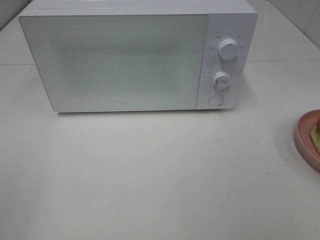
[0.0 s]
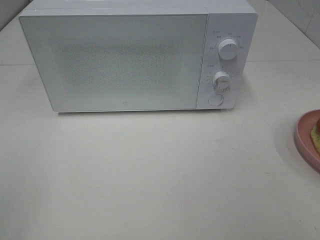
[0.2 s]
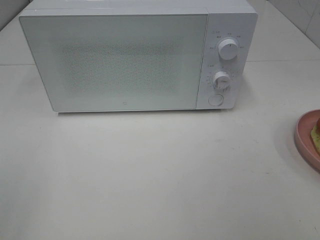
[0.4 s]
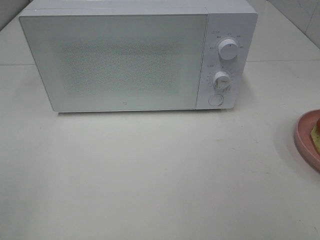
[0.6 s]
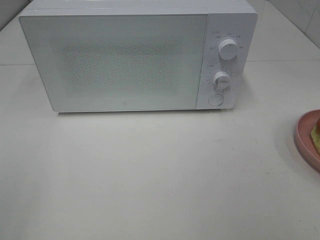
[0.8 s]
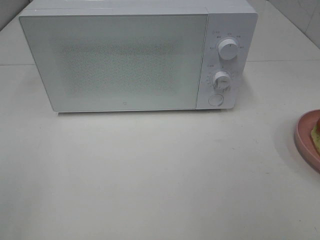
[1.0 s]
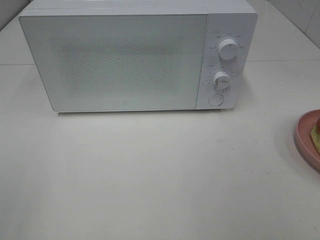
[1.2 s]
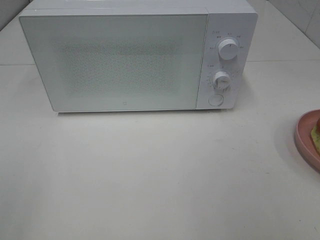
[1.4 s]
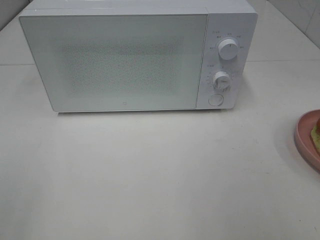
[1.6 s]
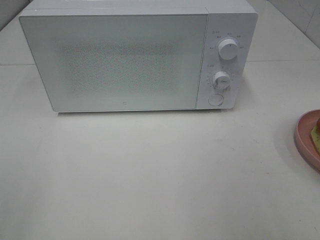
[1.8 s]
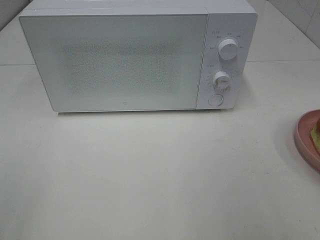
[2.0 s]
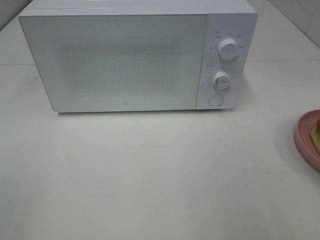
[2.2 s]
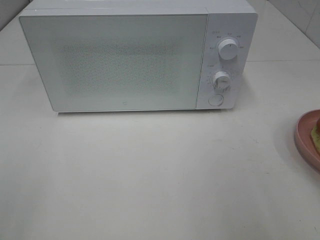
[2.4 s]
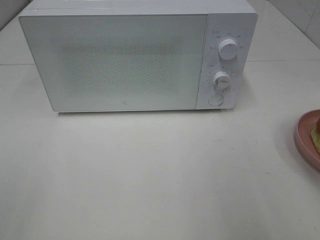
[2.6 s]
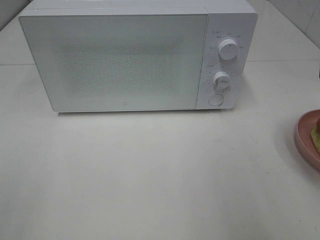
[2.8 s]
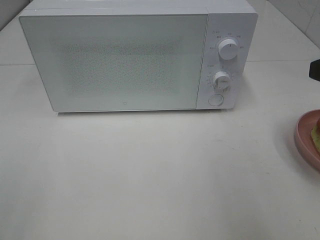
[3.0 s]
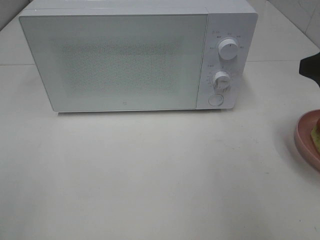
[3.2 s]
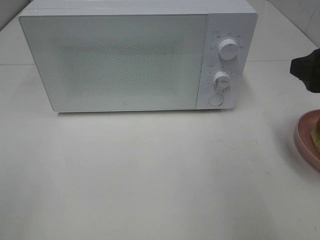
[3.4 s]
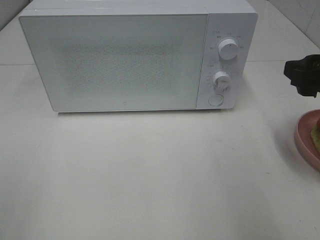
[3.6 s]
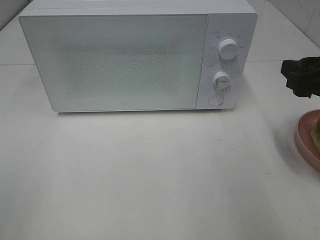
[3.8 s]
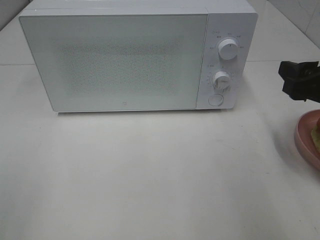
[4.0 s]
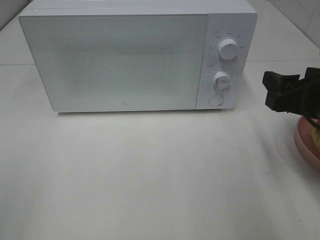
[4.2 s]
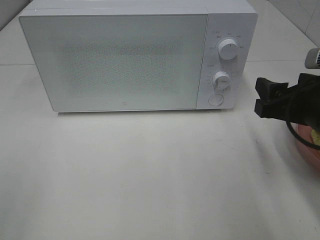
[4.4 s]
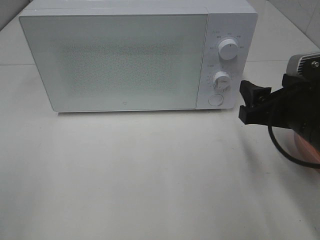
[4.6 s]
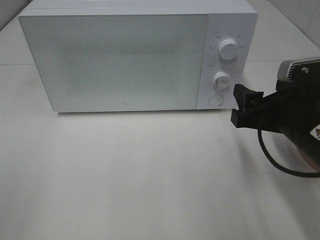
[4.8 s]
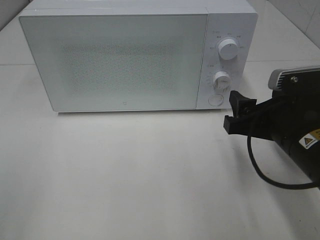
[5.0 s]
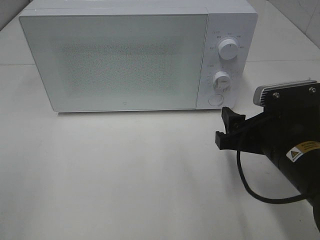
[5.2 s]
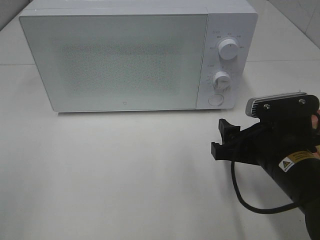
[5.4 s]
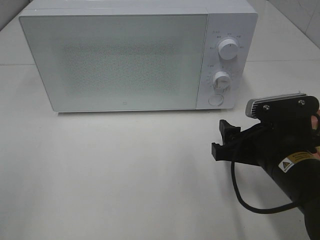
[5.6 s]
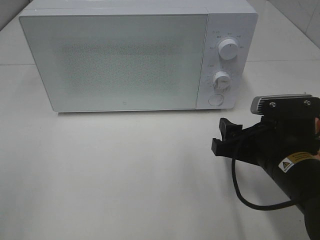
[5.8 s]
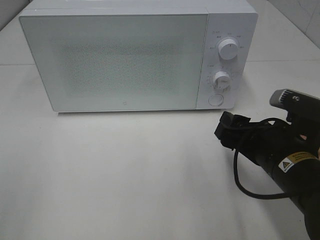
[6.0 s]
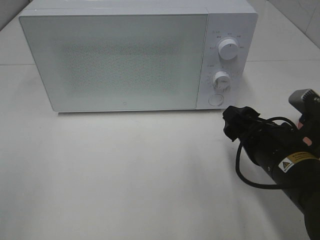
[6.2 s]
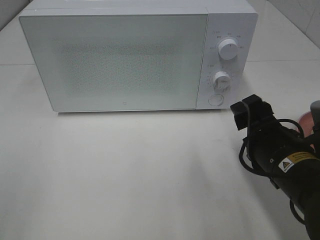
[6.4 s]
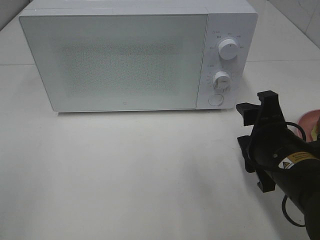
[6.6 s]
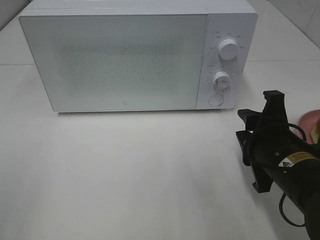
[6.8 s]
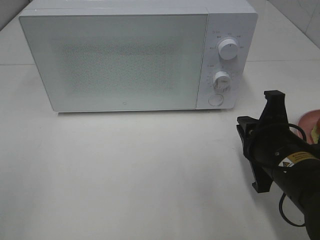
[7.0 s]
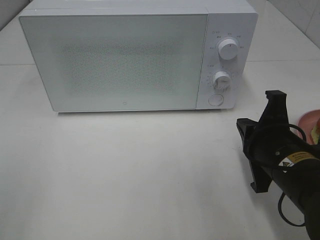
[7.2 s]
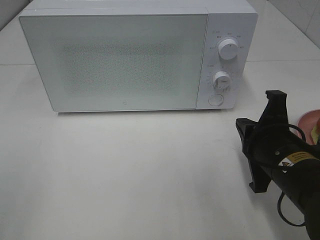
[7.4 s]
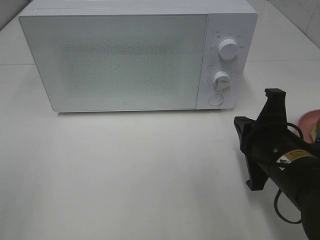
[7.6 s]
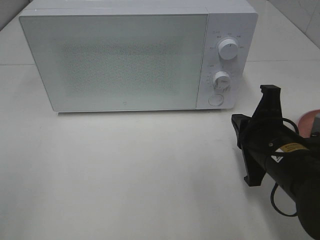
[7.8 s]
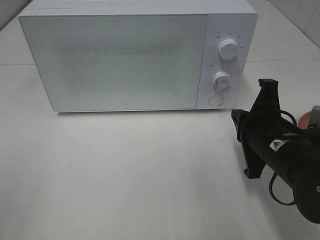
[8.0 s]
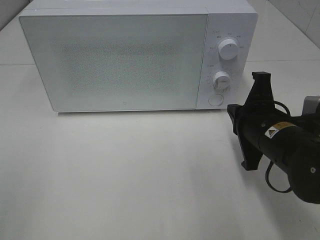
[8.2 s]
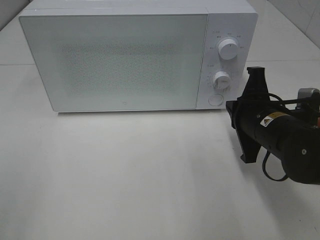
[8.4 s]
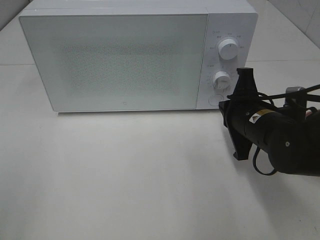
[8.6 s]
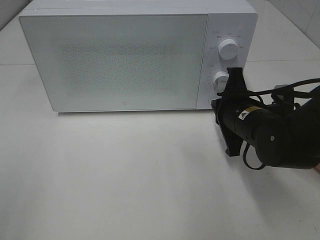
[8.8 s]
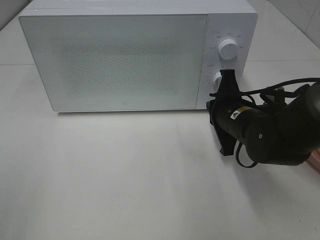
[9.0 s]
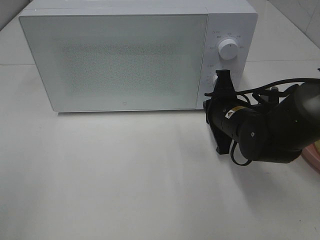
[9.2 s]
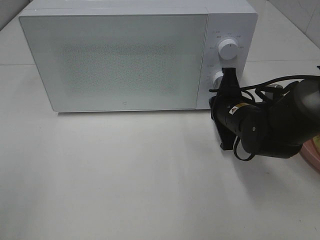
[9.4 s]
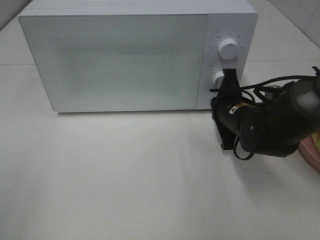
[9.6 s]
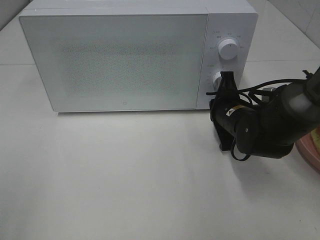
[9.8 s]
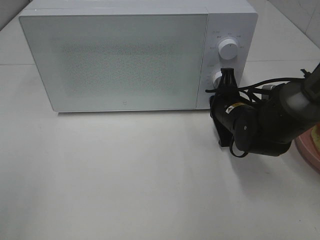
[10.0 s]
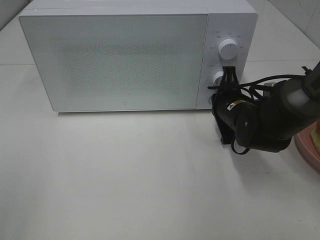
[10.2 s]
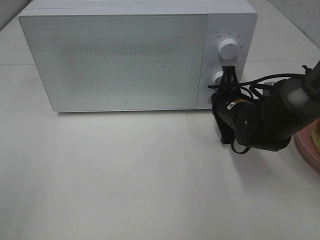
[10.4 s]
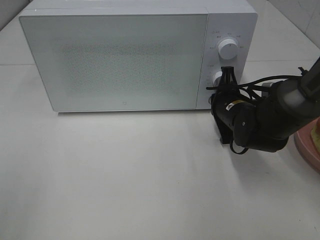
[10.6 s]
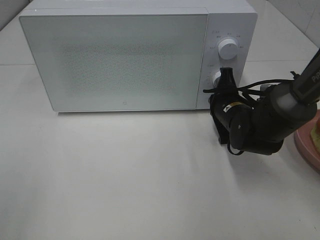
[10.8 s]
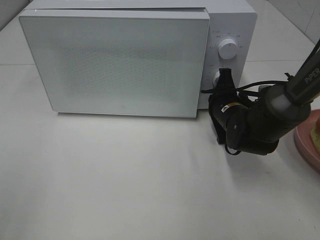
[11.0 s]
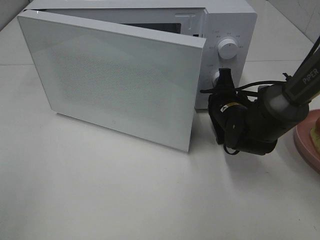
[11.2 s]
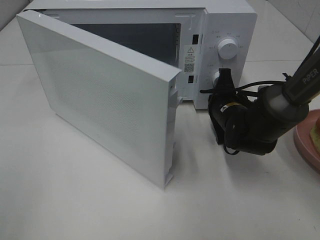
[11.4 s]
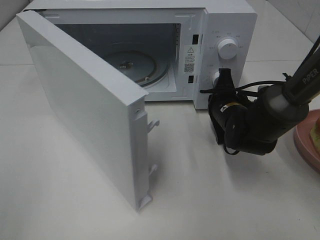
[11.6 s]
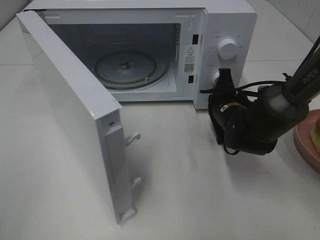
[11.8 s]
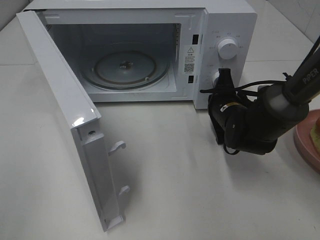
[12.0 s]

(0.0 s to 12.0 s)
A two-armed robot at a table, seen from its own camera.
Task of the whole recording: Heat Sandwich.
1.6 s - 3.0 s: The right gripper travels forward by roughly 10 cm.
3.0 s - 4.4 s: The right gripper moves downward, about 10 cm.
4.4 s - 6.0 s: The right gripper travels downward and to the left by roughly 10 cm.
6.0 s - 7.6 s: The right gripper closes its fingers.
7.6 s - 9.0 s: The right gripper heads forward, covering approximately 10 cm.
9.0 s - 10.4 s: The right gripper ends up approximately 5 cm from where it was.

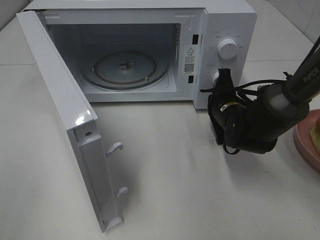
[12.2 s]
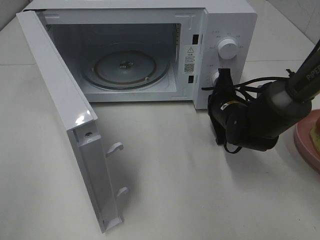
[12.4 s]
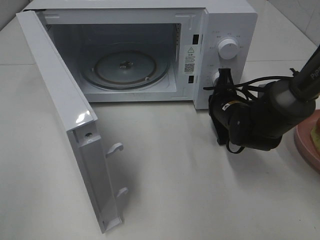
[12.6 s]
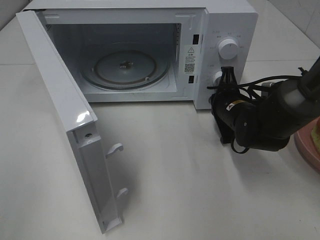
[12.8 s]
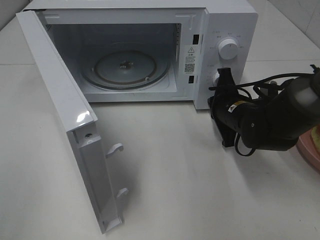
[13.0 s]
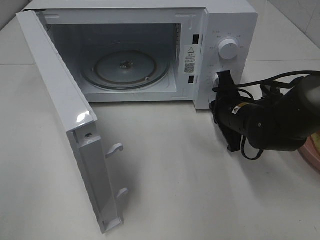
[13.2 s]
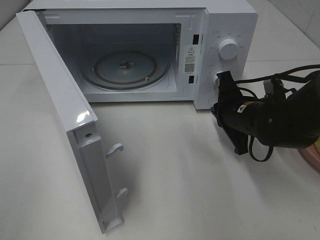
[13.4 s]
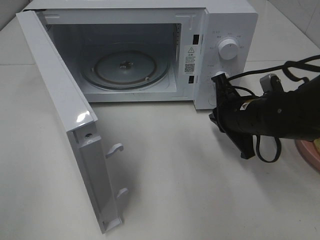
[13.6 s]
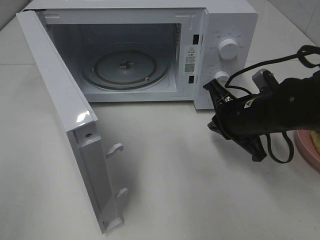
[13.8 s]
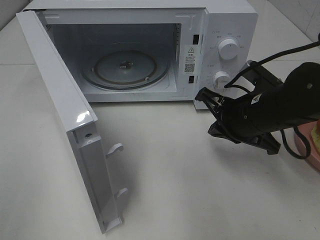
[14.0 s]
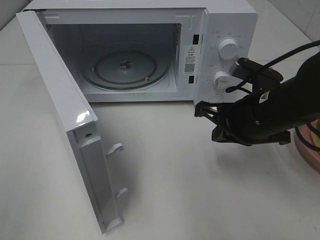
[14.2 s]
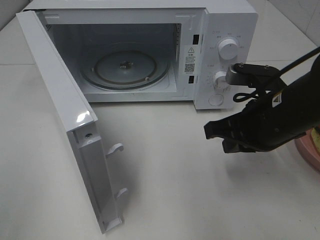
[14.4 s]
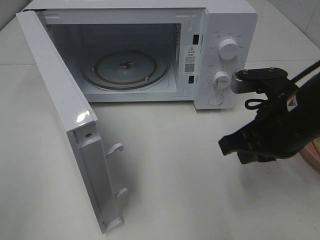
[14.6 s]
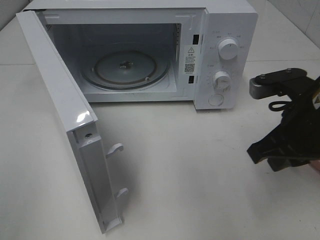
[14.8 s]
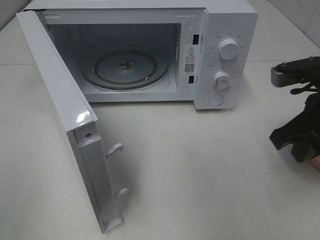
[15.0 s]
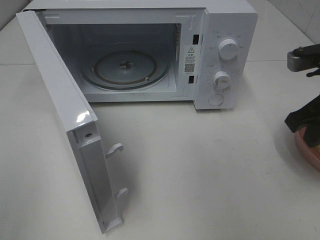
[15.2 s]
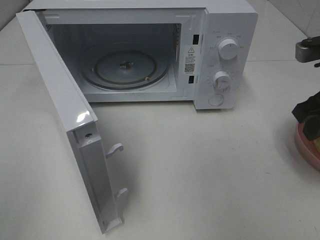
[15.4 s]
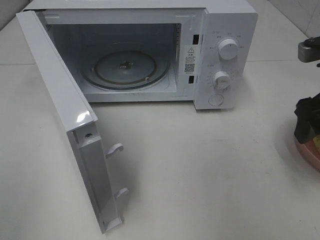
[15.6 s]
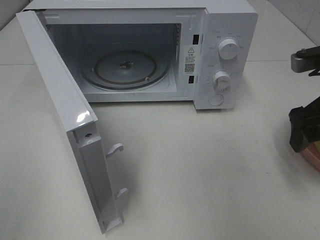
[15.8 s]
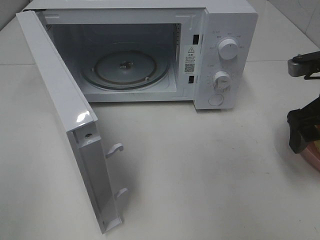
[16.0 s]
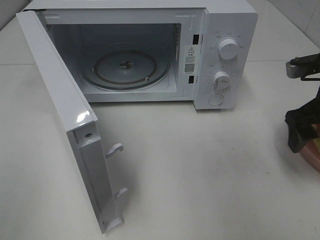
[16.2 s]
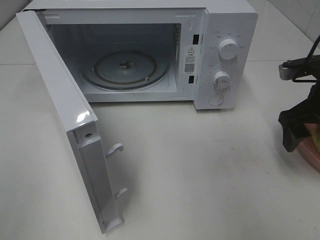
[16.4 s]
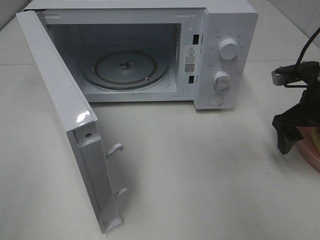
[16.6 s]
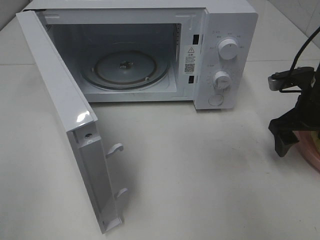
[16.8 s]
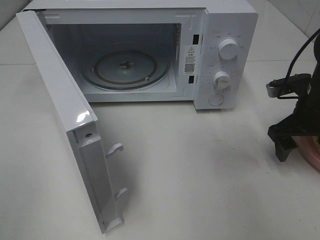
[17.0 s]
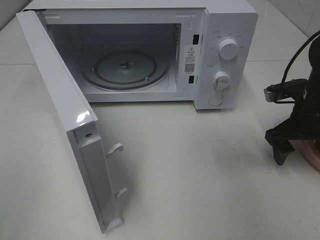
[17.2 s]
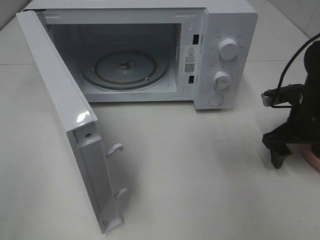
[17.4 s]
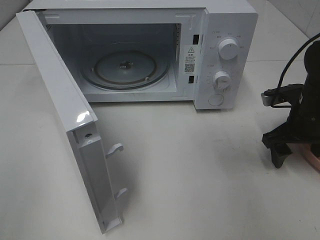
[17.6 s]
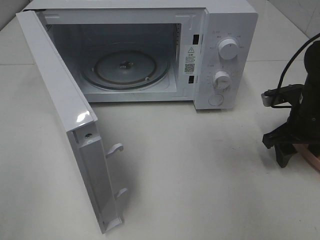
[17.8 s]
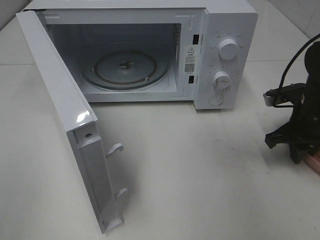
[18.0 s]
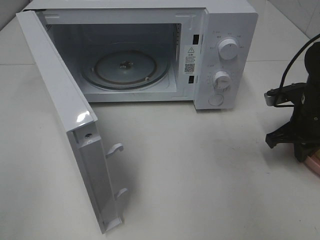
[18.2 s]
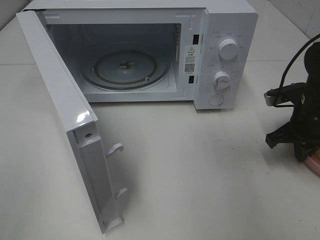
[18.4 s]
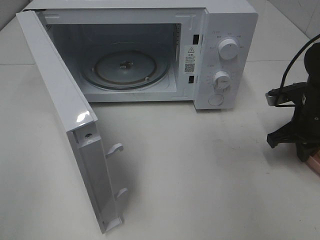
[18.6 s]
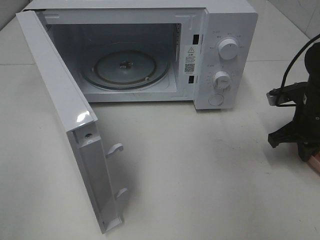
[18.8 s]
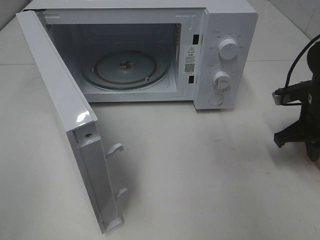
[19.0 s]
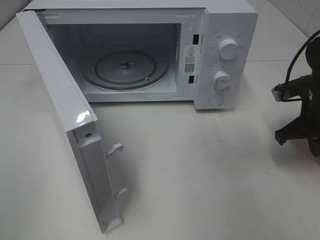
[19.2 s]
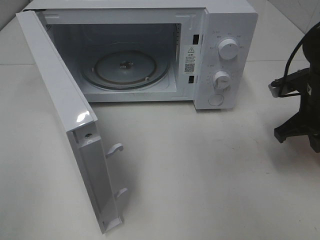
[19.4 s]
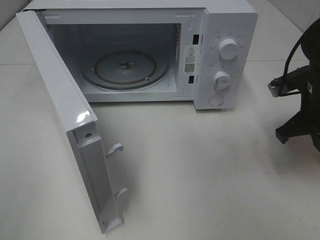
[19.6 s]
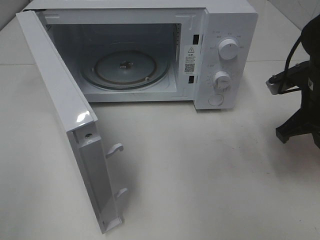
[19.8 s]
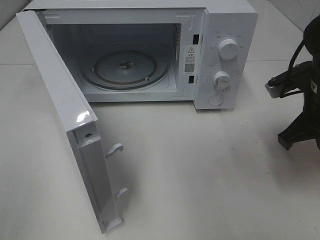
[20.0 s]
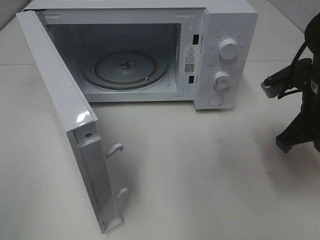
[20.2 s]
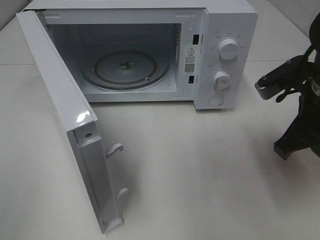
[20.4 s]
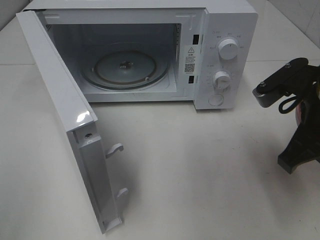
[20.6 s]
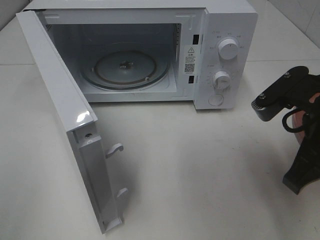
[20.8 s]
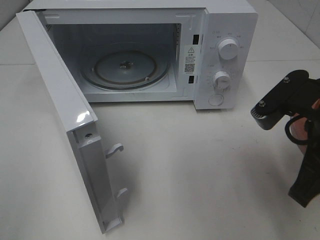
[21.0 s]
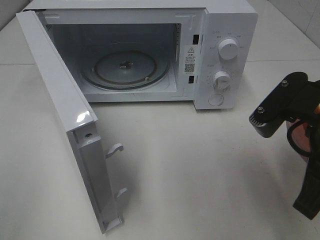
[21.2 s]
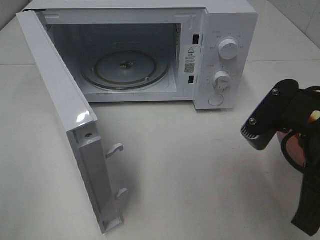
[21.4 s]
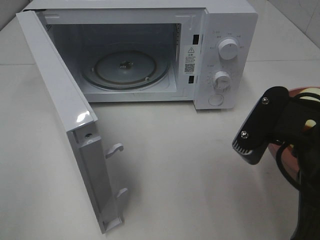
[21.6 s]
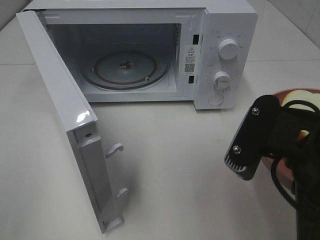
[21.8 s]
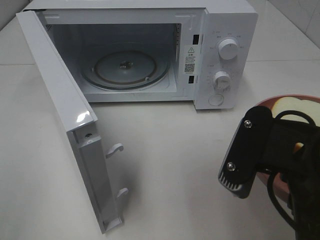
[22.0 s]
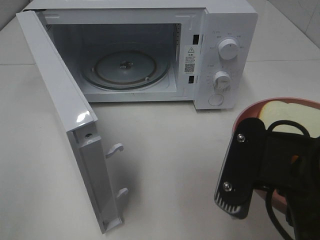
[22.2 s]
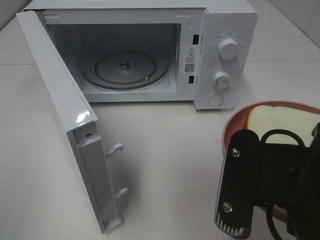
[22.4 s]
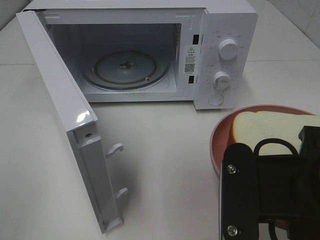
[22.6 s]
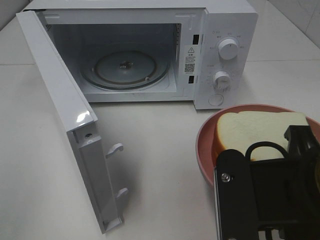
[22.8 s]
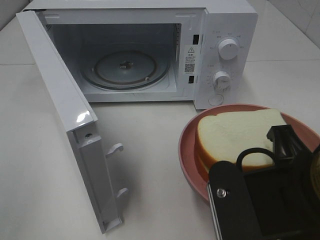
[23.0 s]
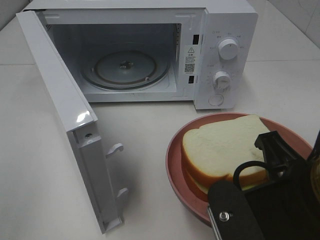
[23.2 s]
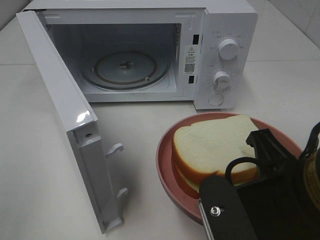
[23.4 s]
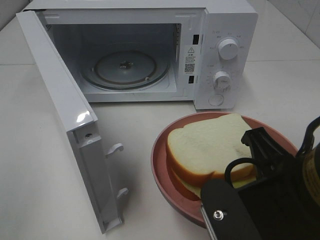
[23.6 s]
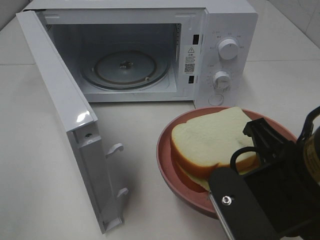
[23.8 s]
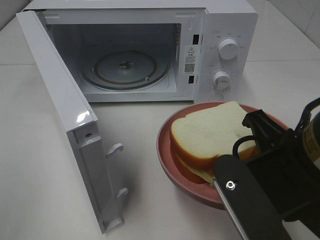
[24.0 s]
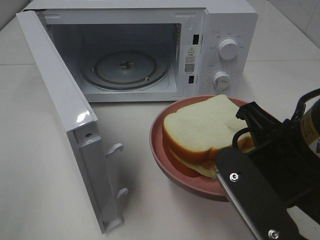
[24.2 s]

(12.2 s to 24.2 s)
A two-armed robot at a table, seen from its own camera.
Task of the whole recording: Heat Sandwich.
Step, 13.2 s - 18.2 s: Right hand: grab the plate with the sandwich.
12.2 s - 13.8 s: The right gripper heads backward and upward, covering some 10 cm.
13.8 s - 15.2 s: The right gripper goes some 15 cm upward and to the right.
15.2 s - 16.6 s: The right gripper heads forward and downward, covering approximately 10 cm, and opens its fingers.
16.6 s - 18.2 s: The right gripper shifts some 5 cm downward, and closes up.
18.2 s - 19.8 s: The right gripper travels upward by approximately 5 cm.
19.8 s - 21.2 s: The right gripper goes roughly 15 cm backward, to the left and upward.
21.2 s - 22.6 s: The right gripper is displaced backward and to the left by approximately 10 cm.
